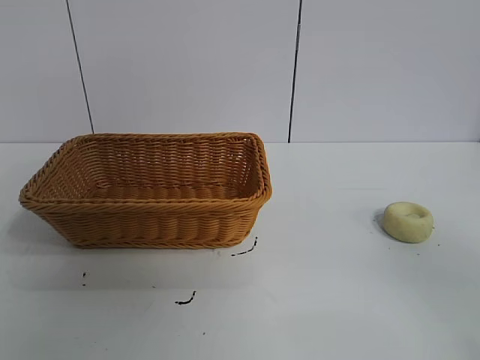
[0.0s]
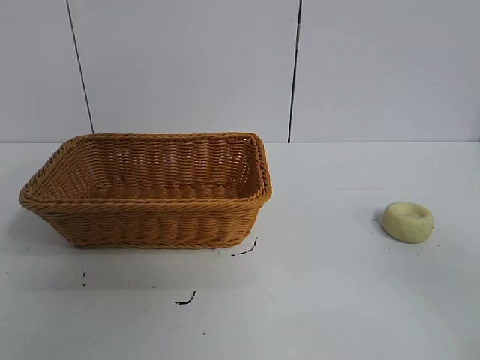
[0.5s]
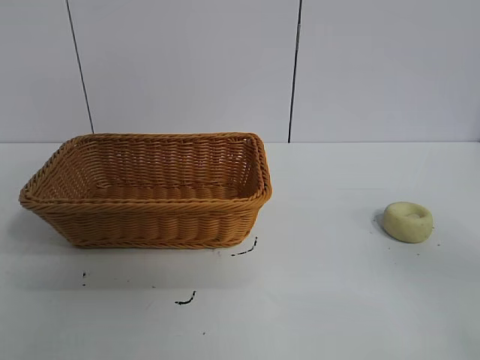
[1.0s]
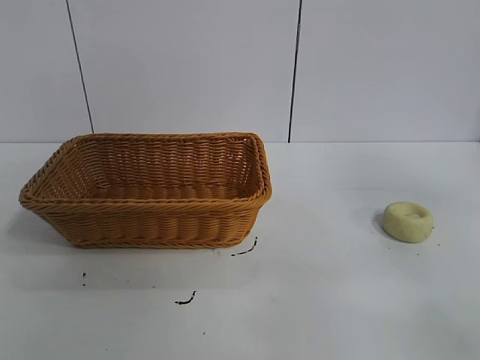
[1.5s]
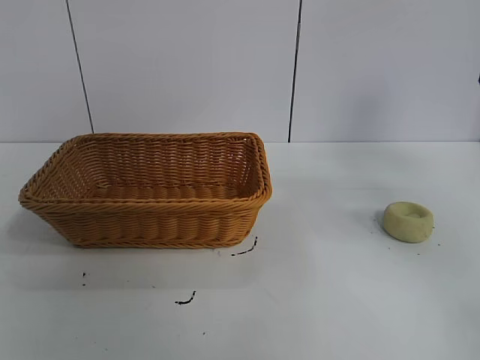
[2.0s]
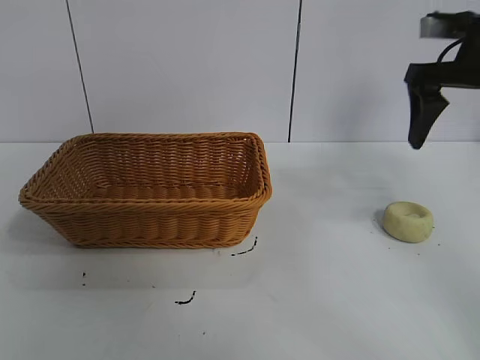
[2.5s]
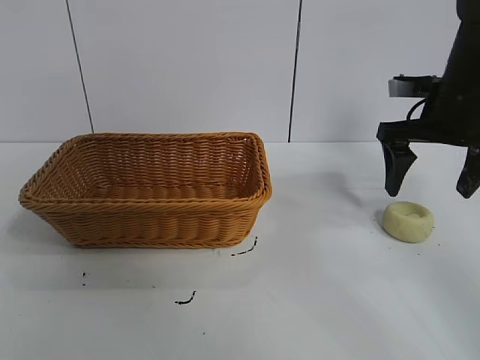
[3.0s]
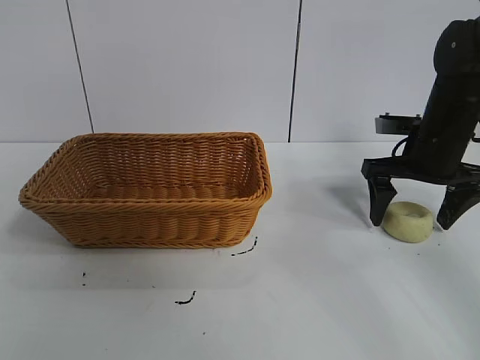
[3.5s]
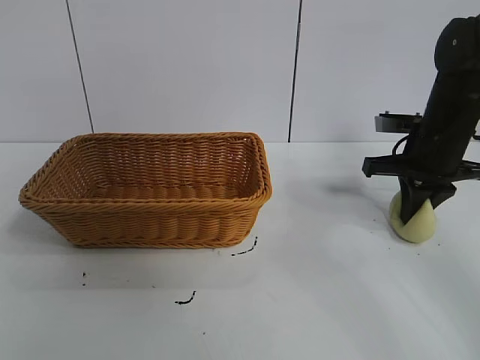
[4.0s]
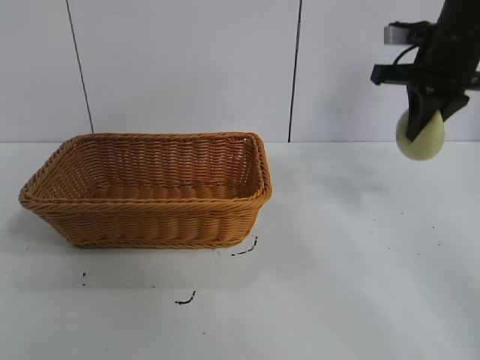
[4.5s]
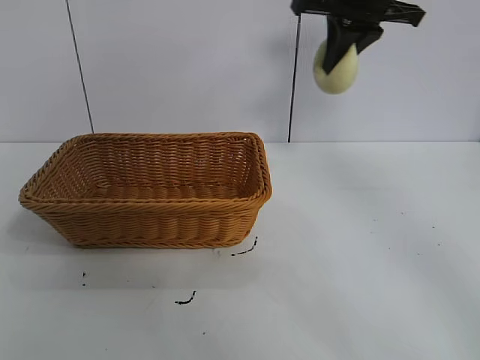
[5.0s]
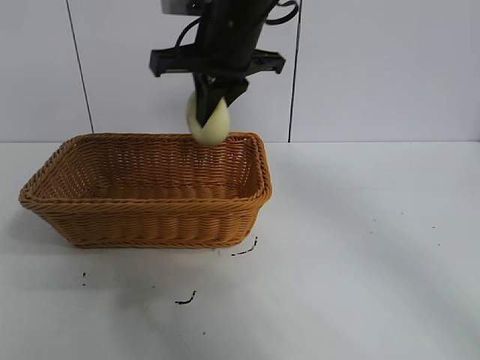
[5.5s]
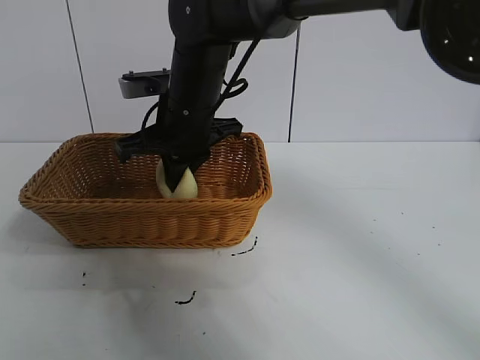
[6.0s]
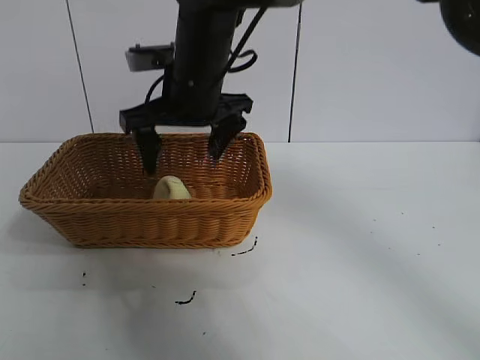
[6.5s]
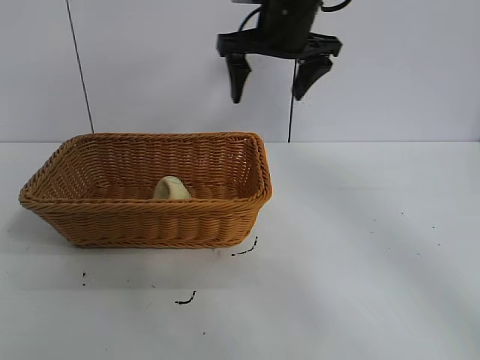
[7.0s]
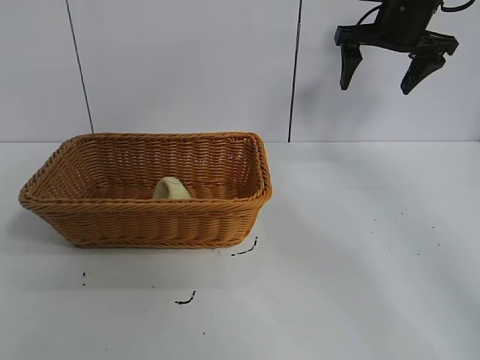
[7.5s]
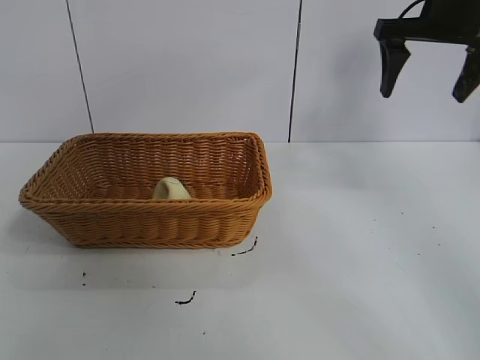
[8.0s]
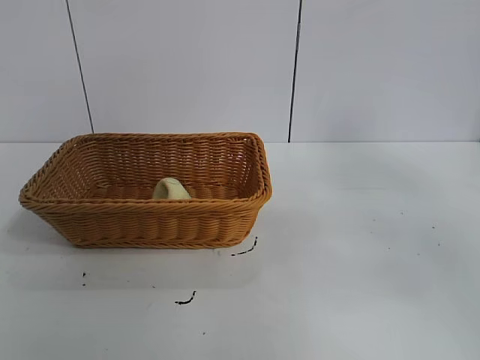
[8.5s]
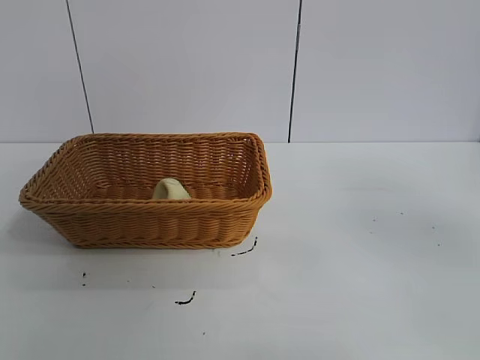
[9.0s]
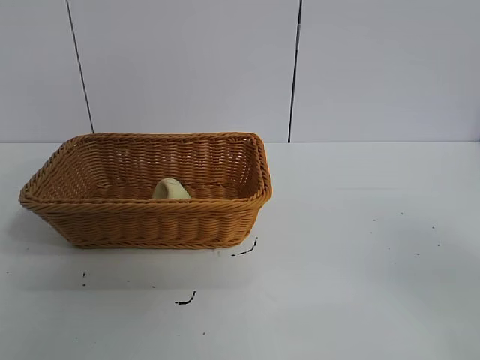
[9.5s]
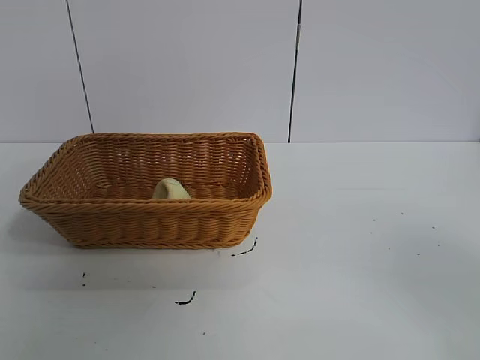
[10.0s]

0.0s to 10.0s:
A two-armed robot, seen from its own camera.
Task of the whole recording: pick up the egg yolk pastry and put it into the basket.
Step, 1.0s to 3.5s: Grasp egg yolk pastry with right gripper.
Step, 4.5s to 6.0s: Place the egg yolk pastry in the basket with right gripper.
